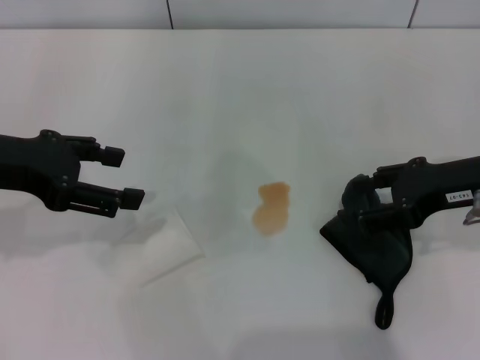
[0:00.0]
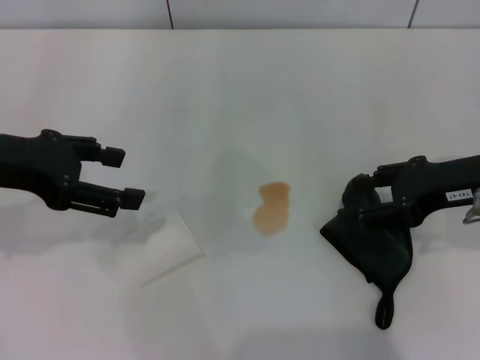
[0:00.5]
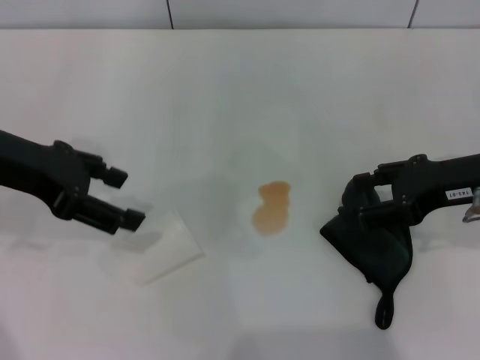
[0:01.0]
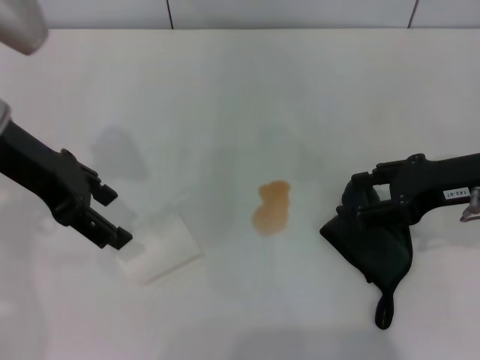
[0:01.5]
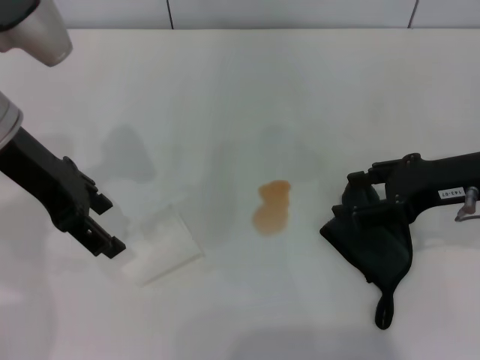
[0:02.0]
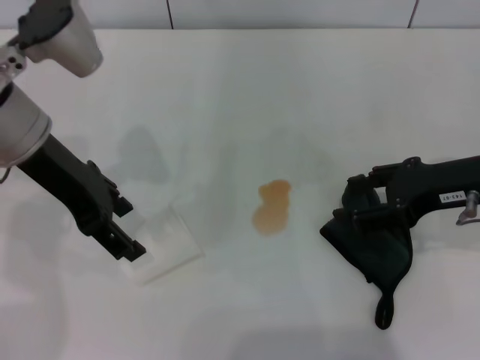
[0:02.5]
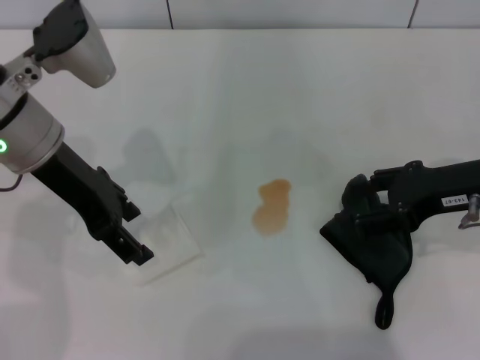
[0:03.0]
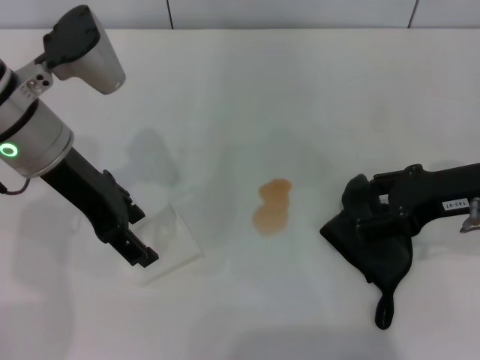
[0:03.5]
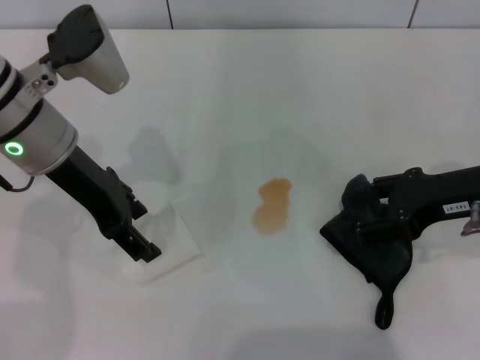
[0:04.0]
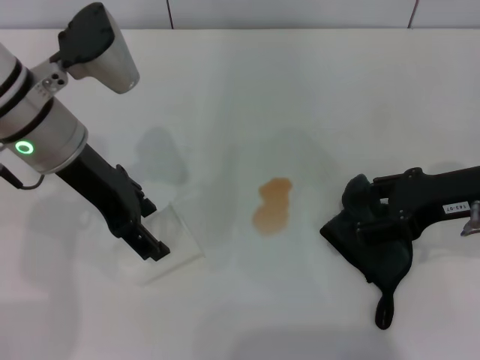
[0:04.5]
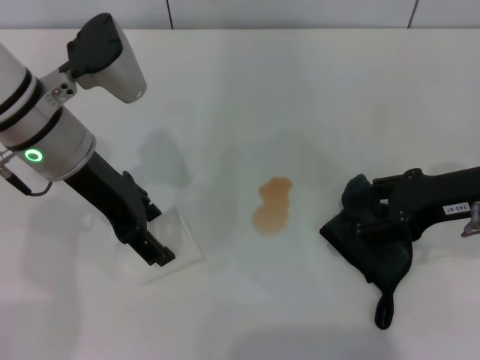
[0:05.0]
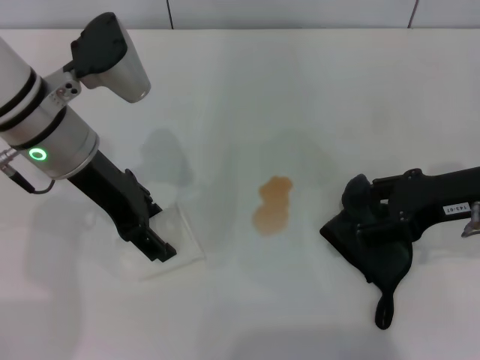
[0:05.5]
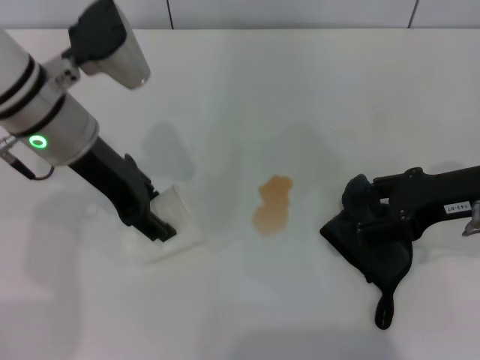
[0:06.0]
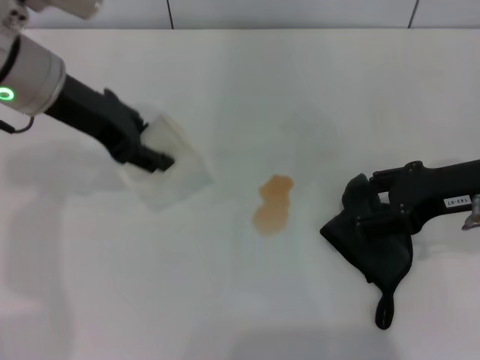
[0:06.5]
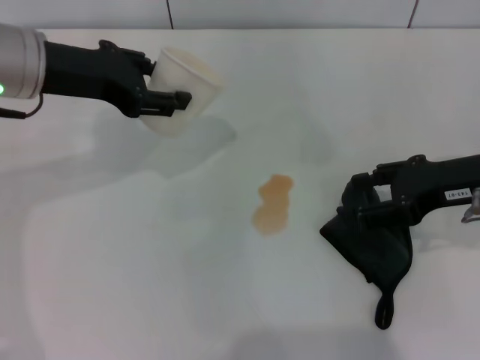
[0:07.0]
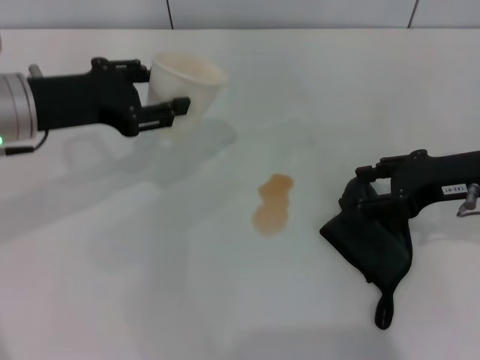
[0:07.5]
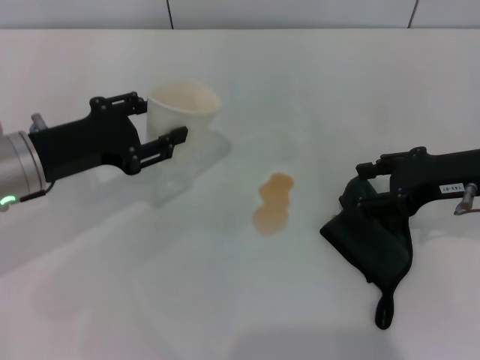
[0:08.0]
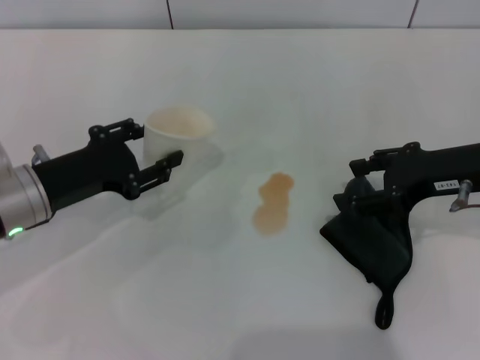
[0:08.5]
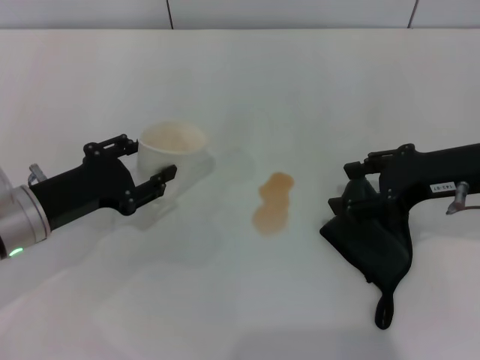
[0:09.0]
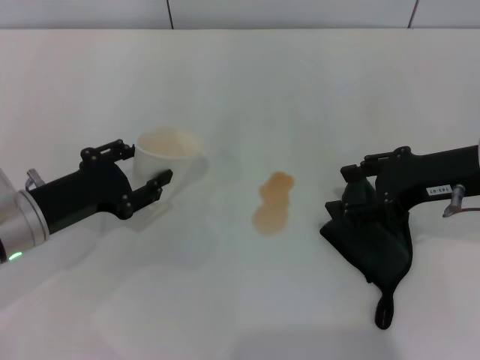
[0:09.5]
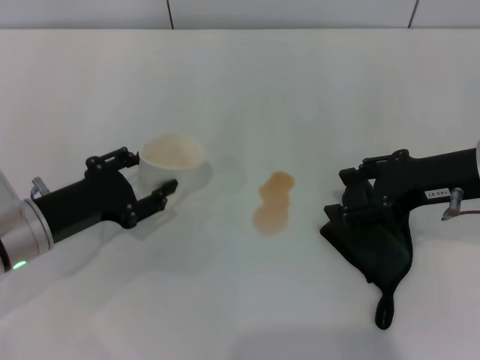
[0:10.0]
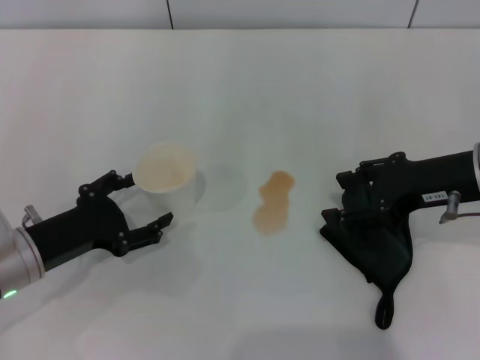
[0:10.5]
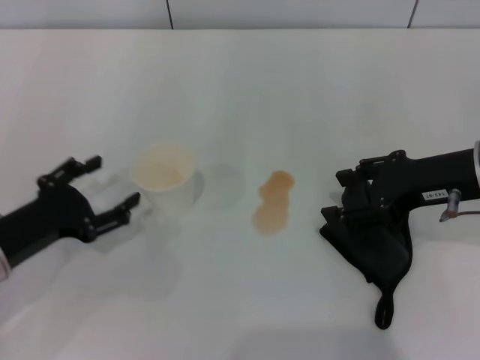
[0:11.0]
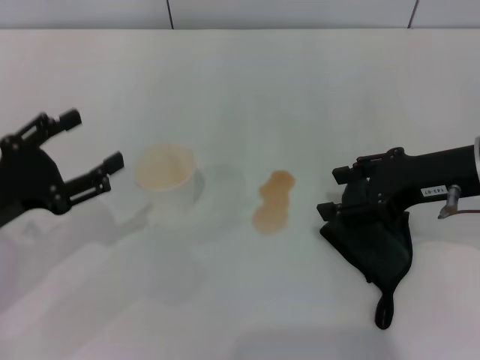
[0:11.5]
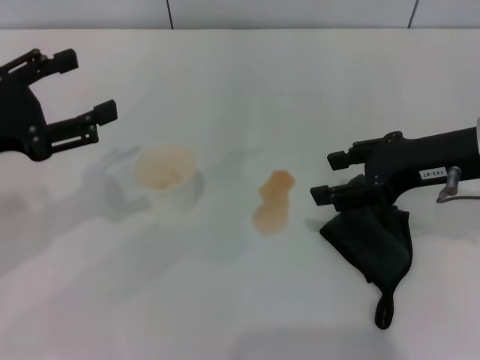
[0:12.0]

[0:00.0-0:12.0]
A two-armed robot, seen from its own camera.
Step, 0:00.0 to 0:05.5: Grasp the paper cup with the left gripper.
Step, 0:06.0 to 0:11.0: Stand the paper cup upright with the left gripper.
0:00.0 to 0:02.0: The left gripper heads to the right and forward, covering some 10 cm.
0:02.0 to 0:04.0: The grippers move only a little.
0:04.0 to 0:06.0: The left gripper closes.
0:06.0 to 0:08.0: The left gripper shifts some 10 cm to the left and downward.
0:08.0 to 0:10.0: The left gripper heads downward, covering some 5 cm.
0:10.0 to 0:12.0: The left gripper goes about 15 cm upward, and opens.

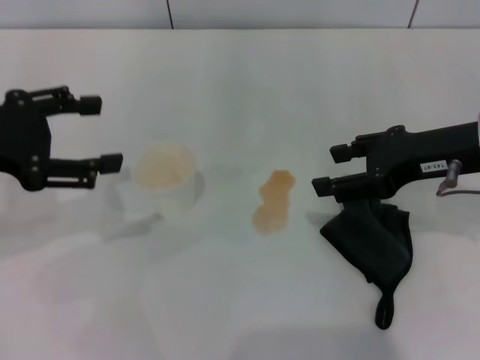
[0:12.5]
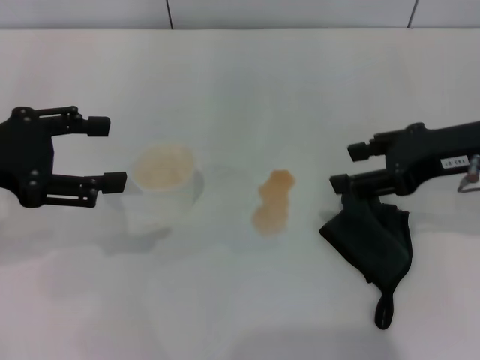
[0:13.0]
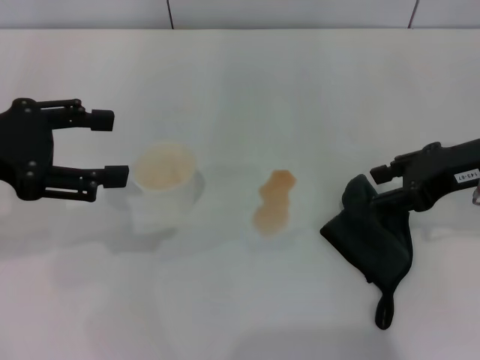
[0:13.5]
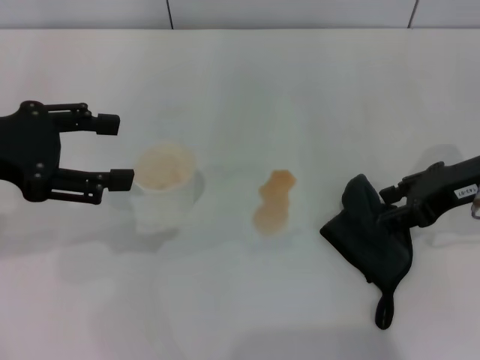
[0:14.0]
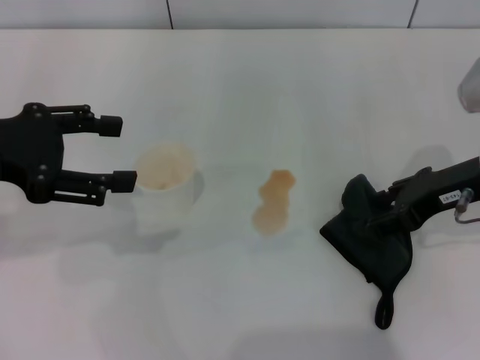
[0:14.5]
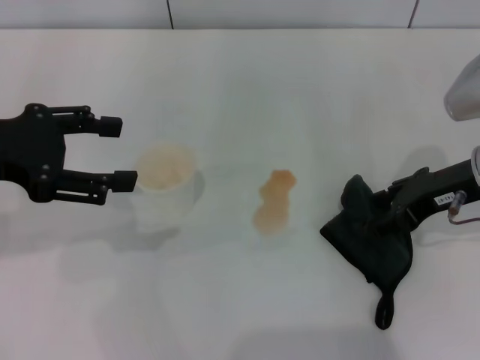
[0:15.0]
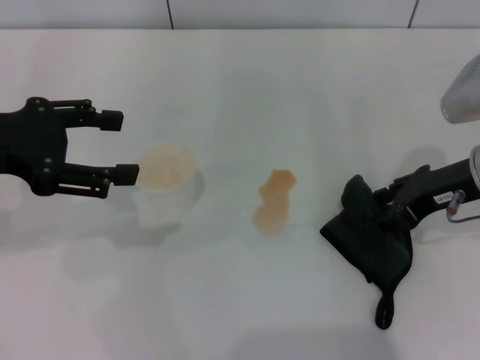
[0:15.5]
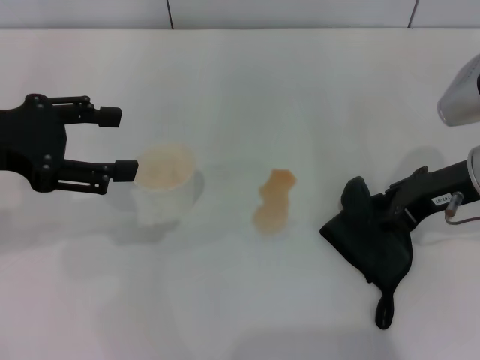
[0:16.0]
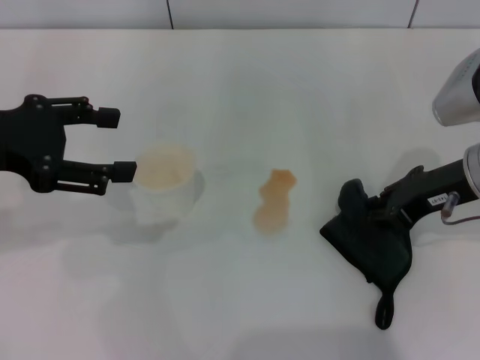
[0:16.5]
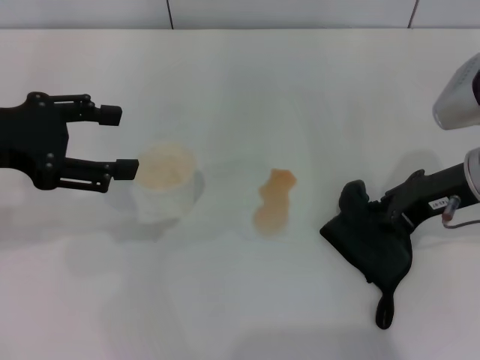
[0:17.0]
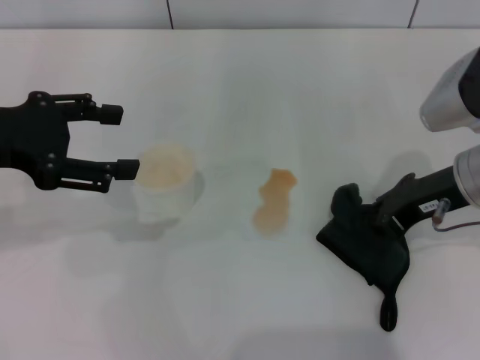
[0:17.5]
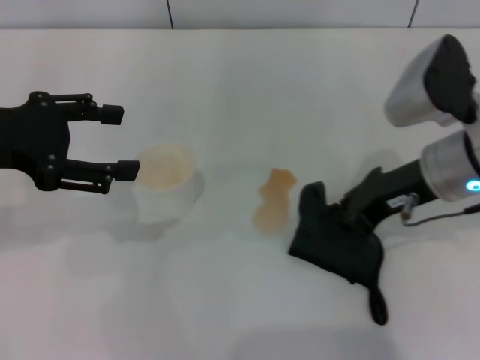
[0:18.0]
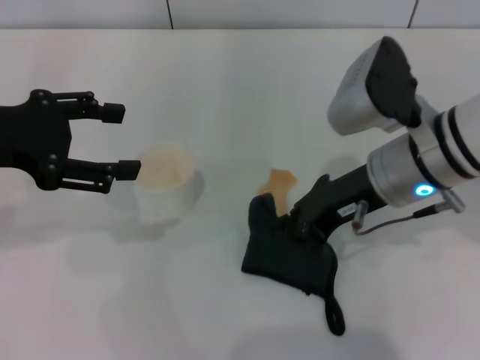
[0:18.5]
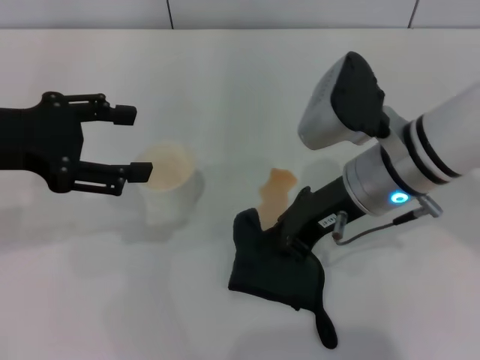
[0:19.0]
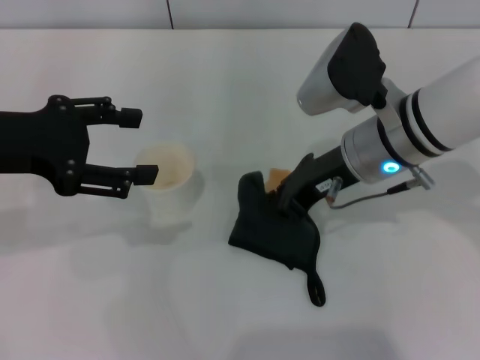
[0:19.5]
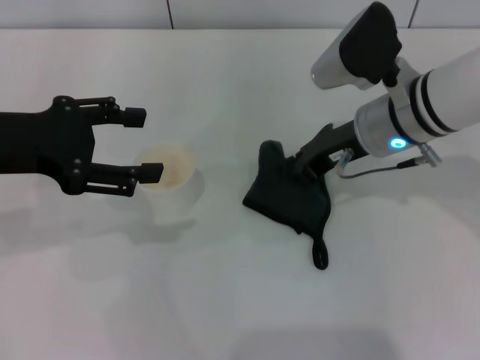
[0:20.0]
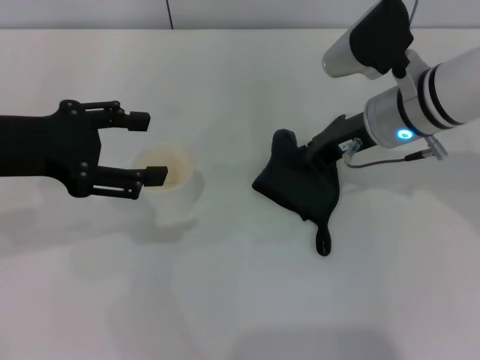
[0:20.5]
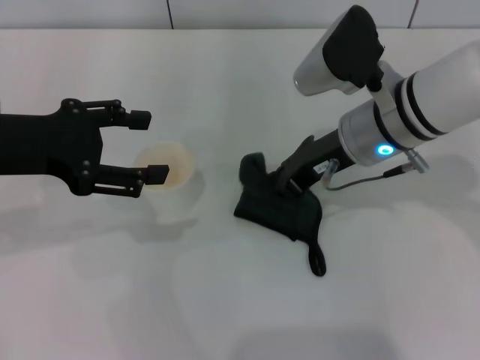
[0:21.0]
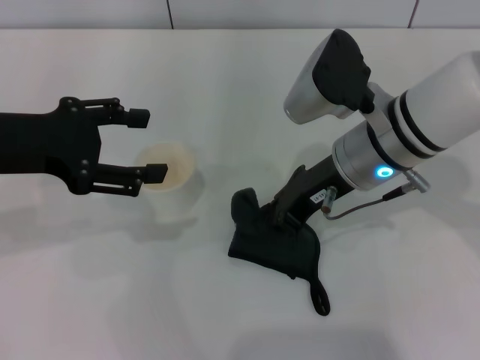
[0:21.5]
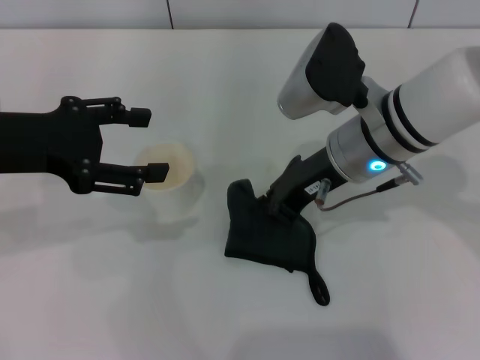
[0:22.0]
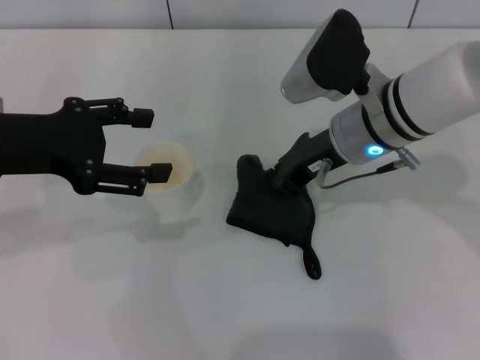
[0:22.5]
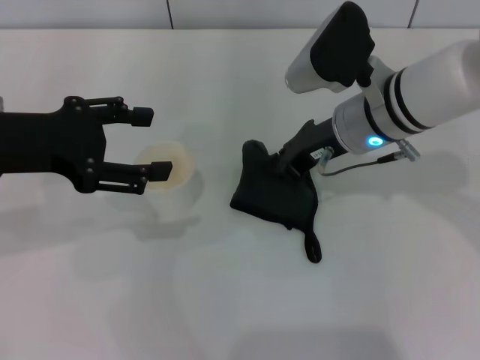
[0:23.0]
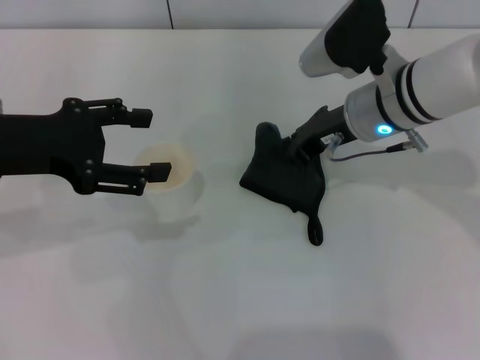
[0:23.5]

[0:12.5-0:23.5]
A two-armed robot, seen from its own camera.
Step, 0:12.5 to 0:17.0: Grasp the rag with the right gripper.
0:12.5 to 0:14.5: The grippers stay close to where they were, moving slightly.
0:14.5 to 0:16.0: There are only small adjustments of the grippers.
0:16.0 to 0:18.0: The right gripper changes place by some 5 cm, and closes up.
0:18.0 to 0:20.0: The right gripper goes about 5 cm forward.
0:20.0 to 0:21.5: The grippers stay close to where they were, moving slightly.
0:21.5 to 0:23.5: The right gripper changes place by roughly 5 cm.

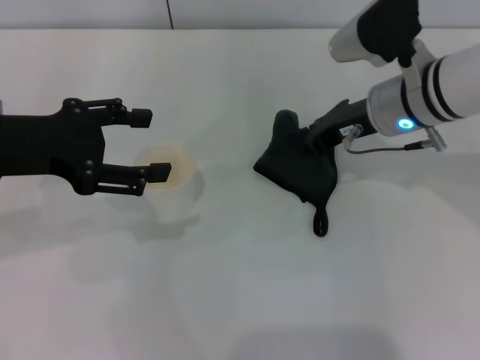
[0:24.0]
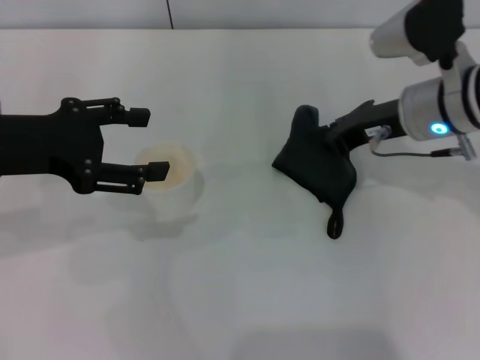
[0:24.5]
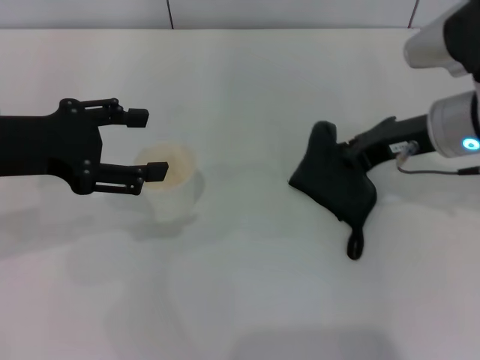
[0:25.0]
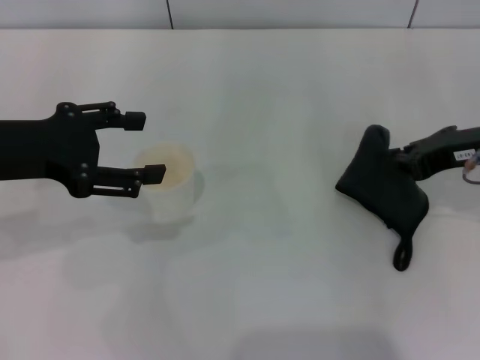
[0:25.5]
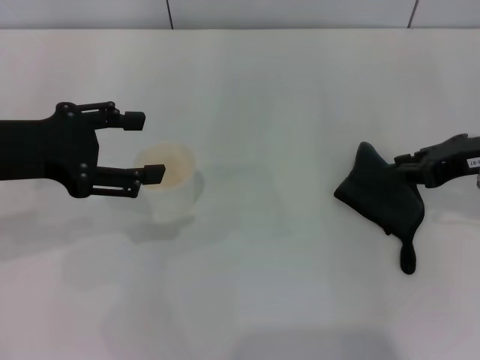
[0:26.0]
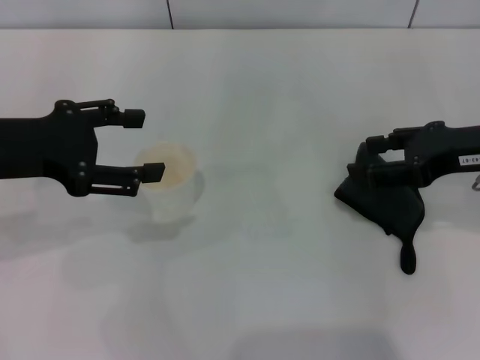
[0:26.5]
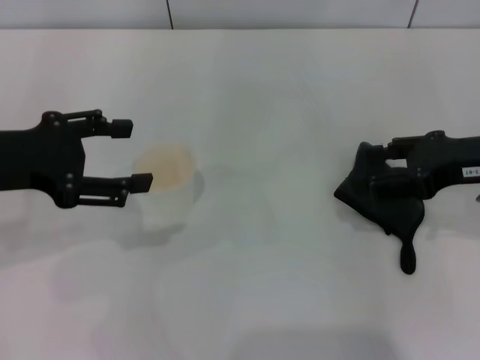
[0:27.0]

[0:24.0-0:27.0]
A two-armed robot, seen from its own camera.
Step, 0:25.5 to 0:26.0: Place the rag on the table with the right gripper.
0:24.0 to 0:25.5: The right gripper heads to the right and backward, covering approximately 15 cm.
0:25.5 to 0:27.0: The right gripper opens.
